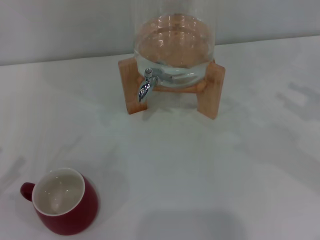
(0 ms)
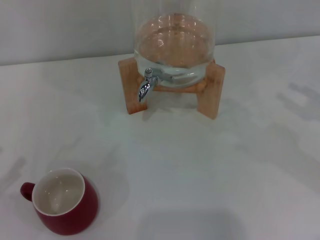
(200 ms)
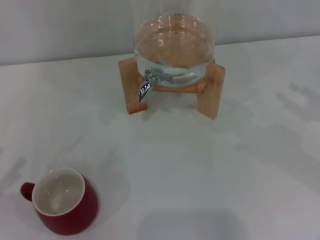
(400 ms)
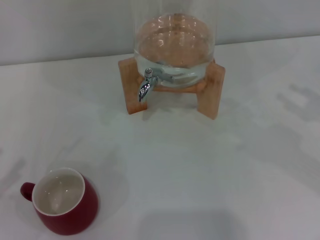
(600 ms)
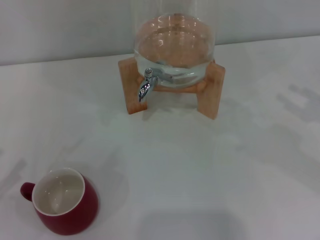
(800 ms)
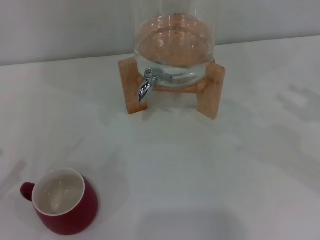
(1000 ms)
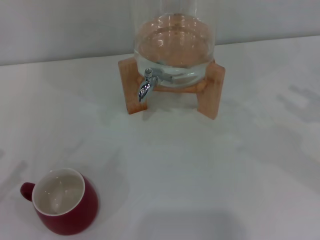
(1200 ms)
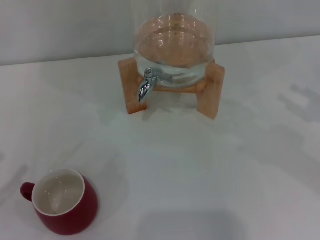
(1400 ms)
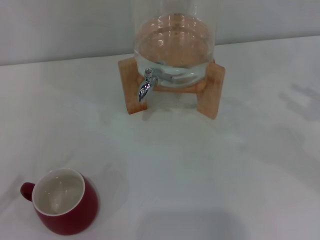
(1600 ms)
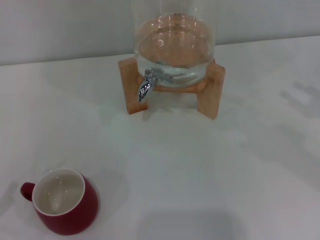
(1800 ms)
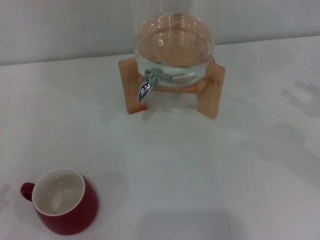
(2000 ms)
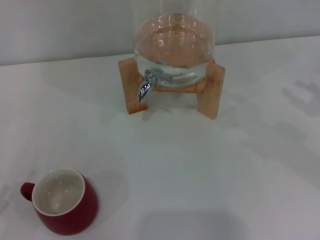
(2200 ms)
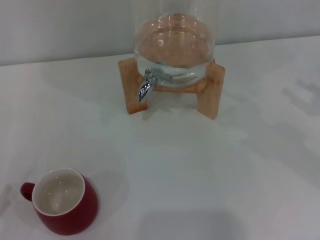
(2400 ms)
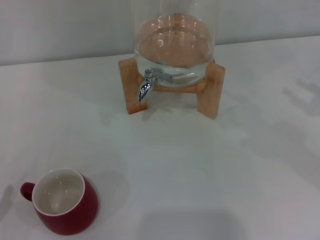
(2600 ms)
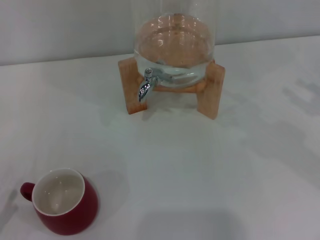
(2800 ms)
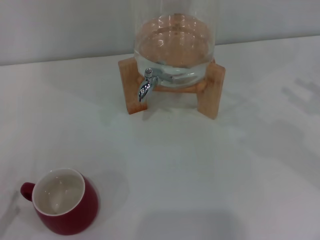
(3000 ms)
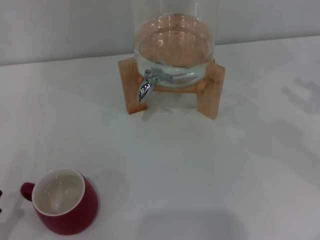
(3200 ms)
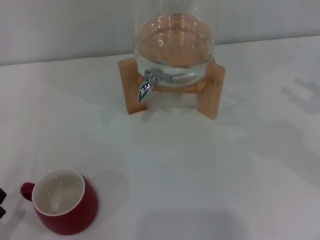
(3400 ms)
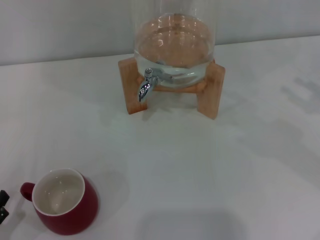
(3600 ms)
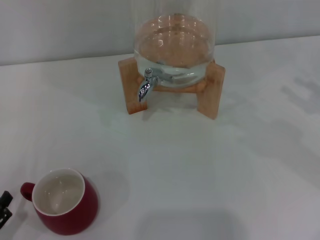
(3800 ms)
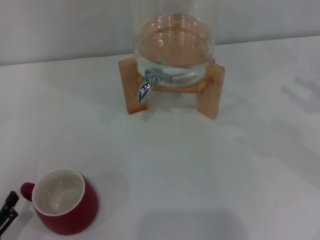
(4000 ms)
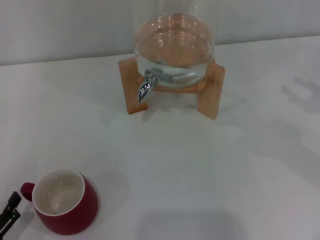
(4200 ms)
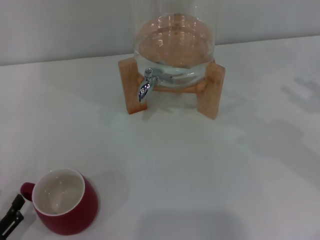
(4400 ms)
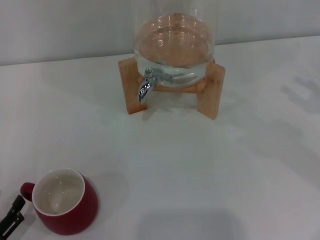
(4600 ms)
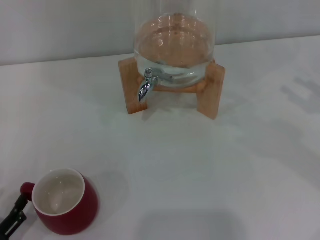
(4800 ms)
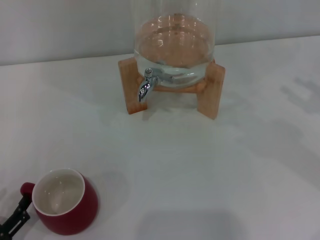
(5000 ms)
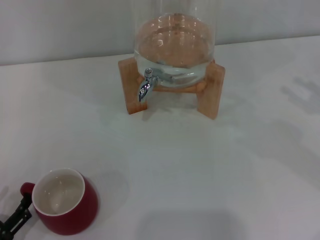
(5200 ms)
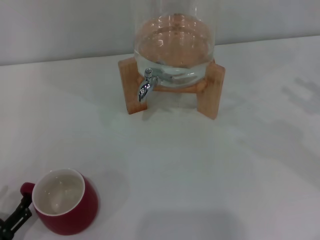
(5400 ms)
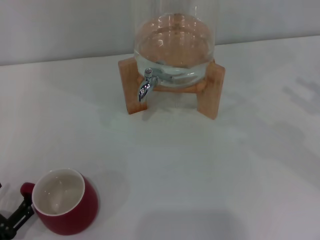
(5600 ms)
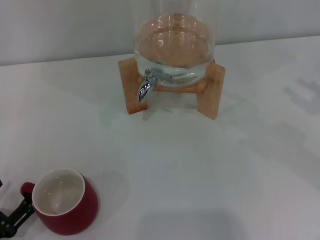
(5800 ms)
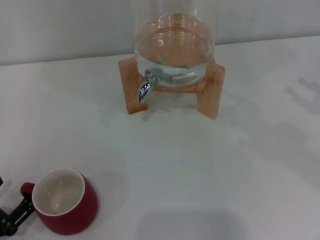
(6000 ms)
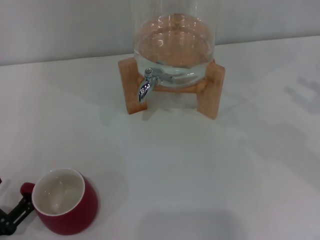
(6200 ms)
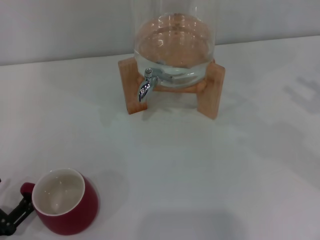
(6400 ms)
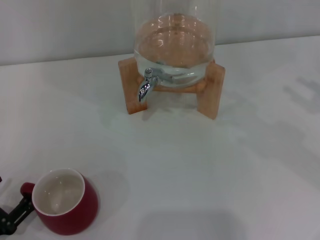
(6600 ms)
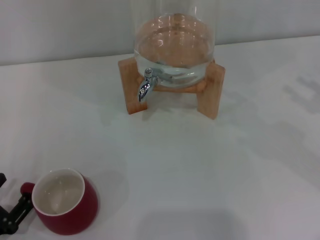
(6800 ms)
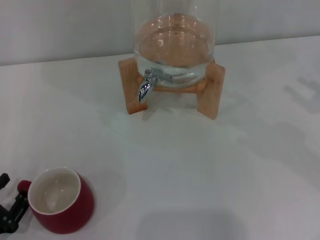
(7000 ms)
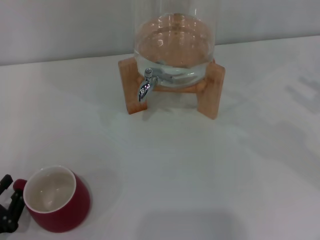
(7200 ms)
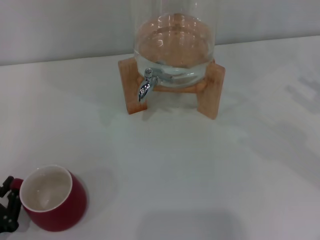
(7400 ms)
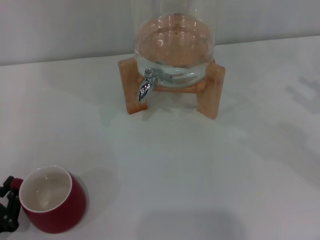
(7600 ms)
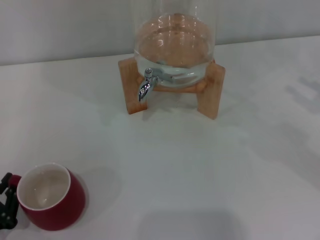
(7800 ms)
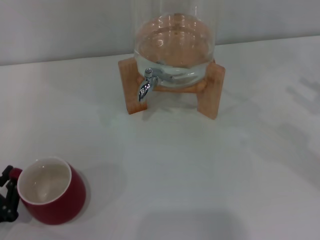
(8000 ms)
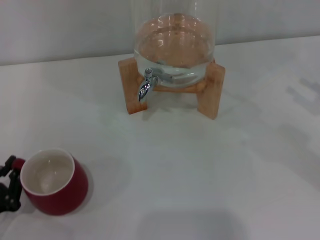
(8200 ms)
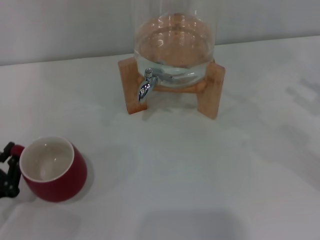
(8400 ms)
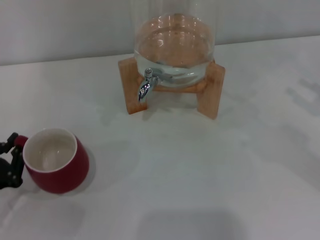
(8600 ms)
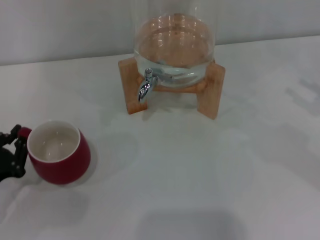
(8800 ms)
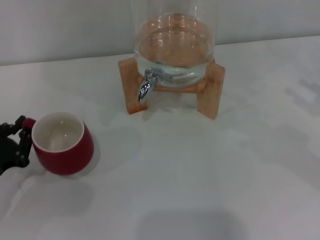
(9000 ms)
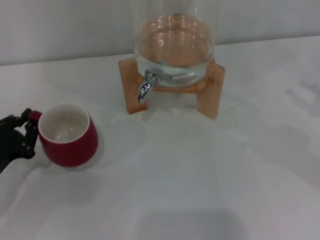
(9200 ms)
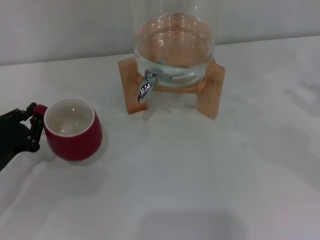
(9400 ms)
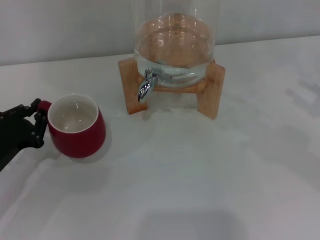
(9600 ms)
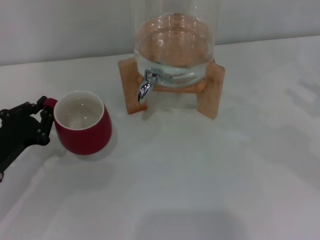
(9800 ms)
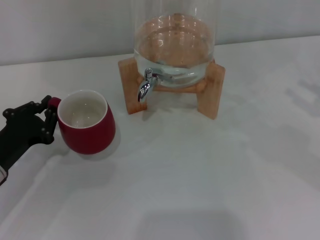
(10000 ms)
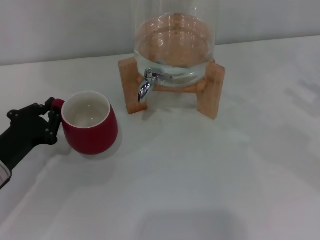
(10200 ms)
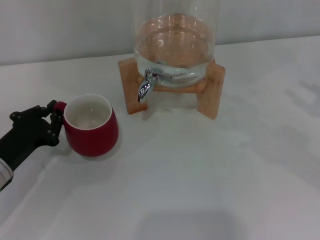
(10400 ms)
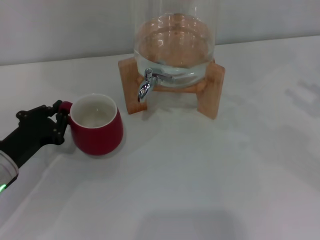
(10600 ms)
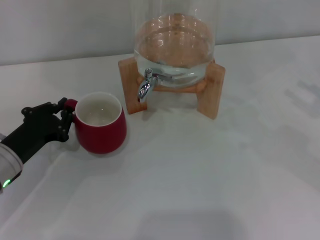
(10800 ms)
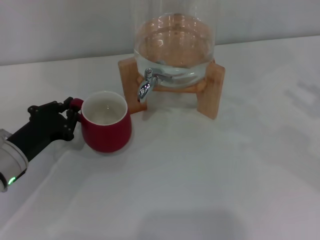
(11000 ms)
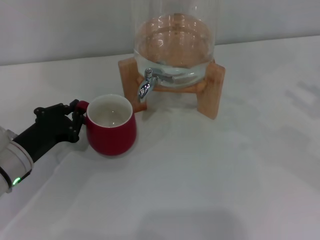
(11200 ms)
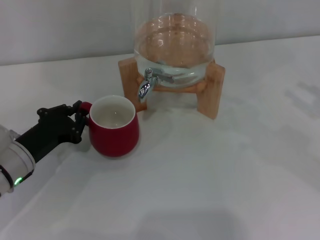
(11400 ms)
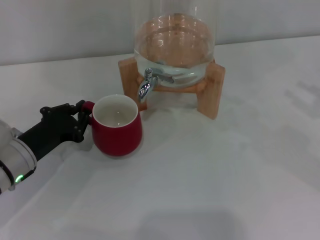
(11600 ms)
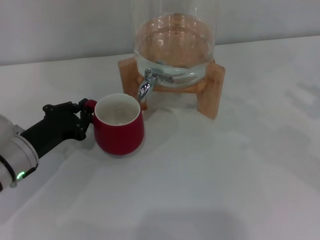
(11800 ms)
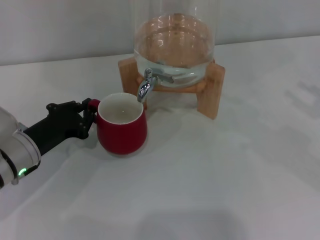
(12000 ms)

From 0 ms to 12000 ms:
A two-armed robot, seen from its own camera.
Task of the whole recording: the left gripper pick up the red cup and place it horizontally under the faucet, the right gripper turn on the faucet to fill the cup, and then turn off the faucet.
From 3000 ms to 4400 ms: The grippers move only a little.
From 6000 ms to 7600 ms: The left gripper closes up.
From 7600 ms to 9000 ms: The left gripper moves forward, approximately 10 cm.
From 9000 ms to 10400 ms: The left gripper moves about 5 cm.
From 10400 ms to 12000 ms: The grippers make only small movements.

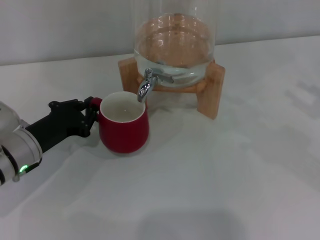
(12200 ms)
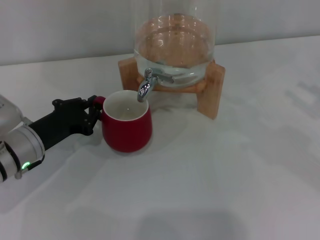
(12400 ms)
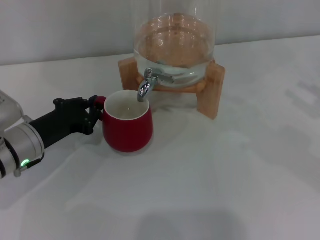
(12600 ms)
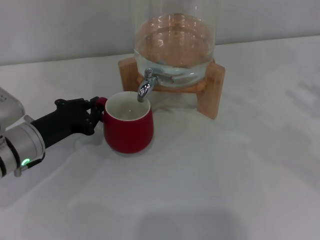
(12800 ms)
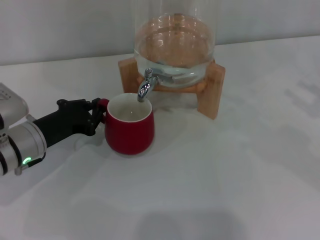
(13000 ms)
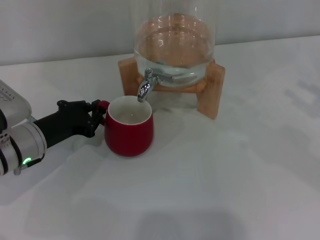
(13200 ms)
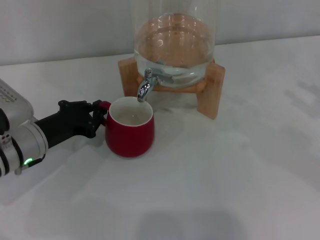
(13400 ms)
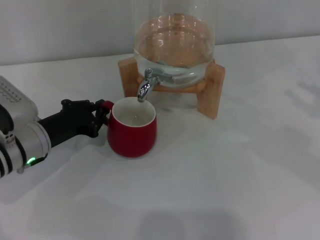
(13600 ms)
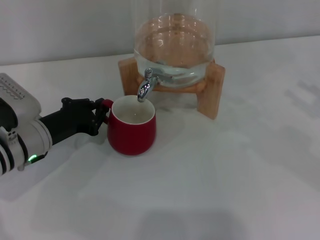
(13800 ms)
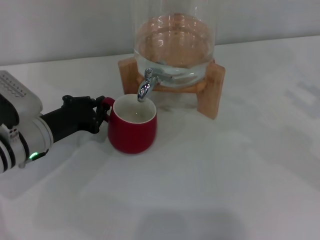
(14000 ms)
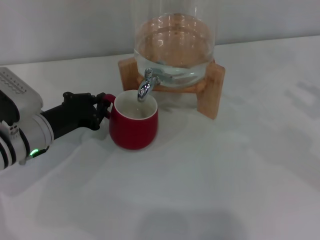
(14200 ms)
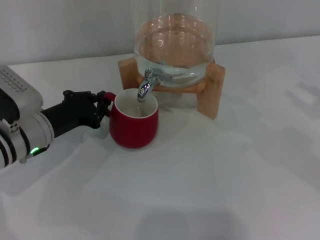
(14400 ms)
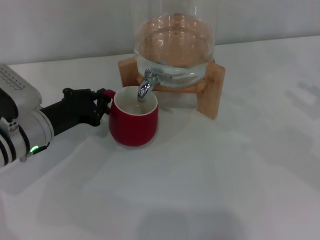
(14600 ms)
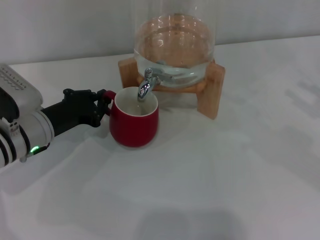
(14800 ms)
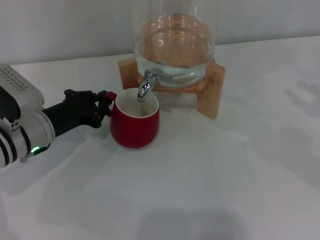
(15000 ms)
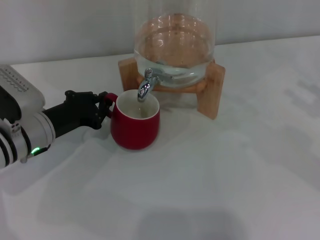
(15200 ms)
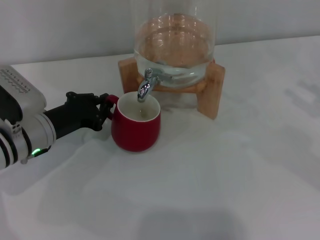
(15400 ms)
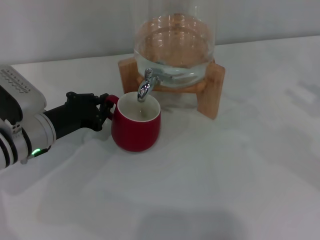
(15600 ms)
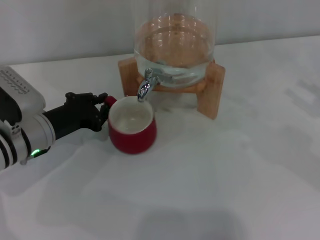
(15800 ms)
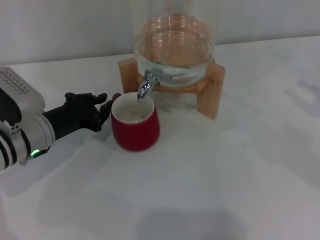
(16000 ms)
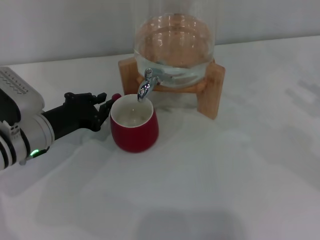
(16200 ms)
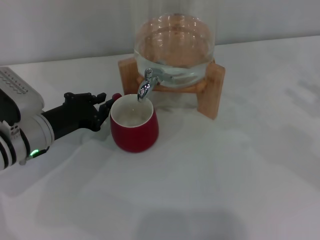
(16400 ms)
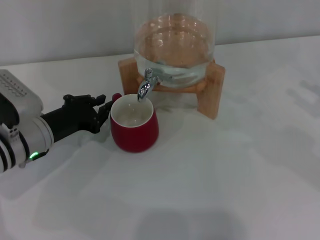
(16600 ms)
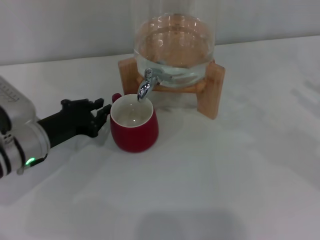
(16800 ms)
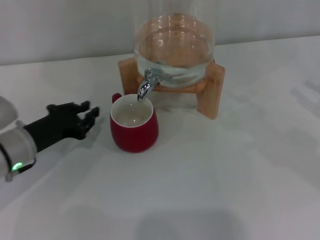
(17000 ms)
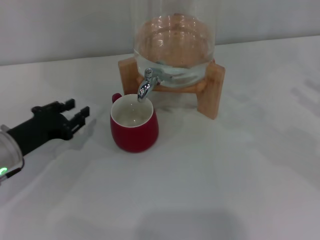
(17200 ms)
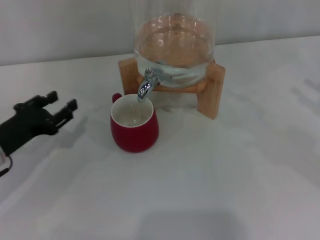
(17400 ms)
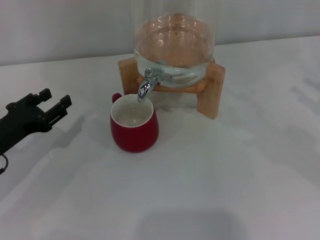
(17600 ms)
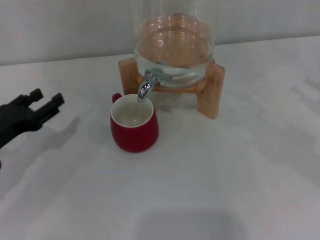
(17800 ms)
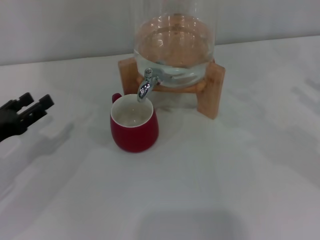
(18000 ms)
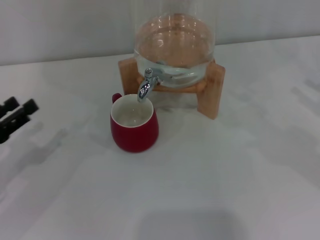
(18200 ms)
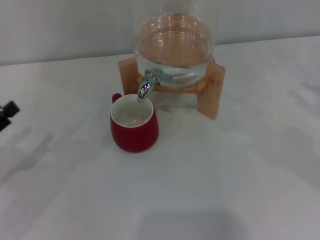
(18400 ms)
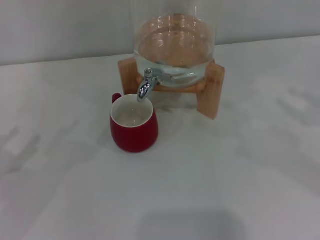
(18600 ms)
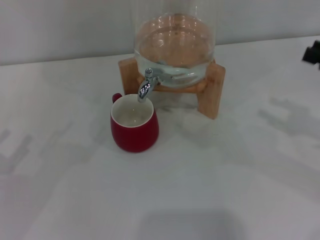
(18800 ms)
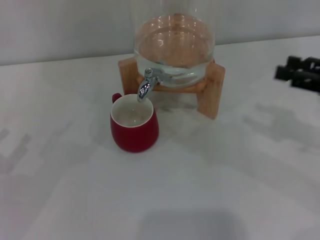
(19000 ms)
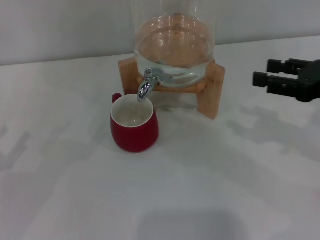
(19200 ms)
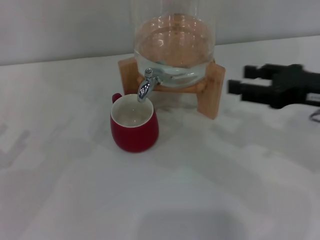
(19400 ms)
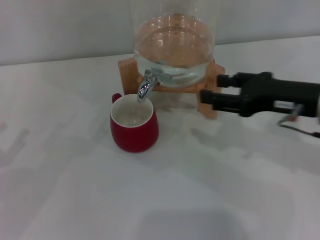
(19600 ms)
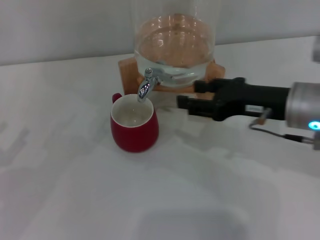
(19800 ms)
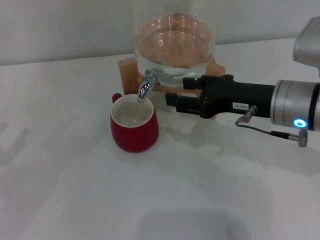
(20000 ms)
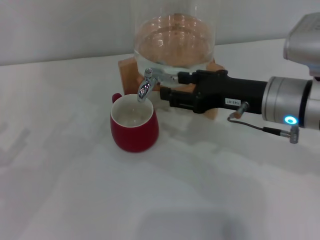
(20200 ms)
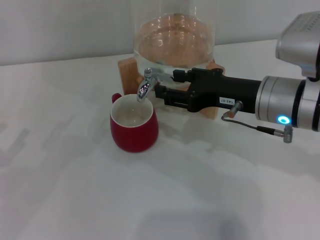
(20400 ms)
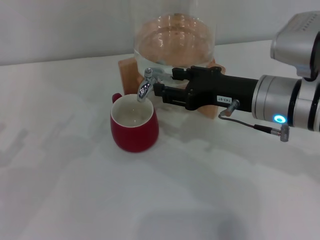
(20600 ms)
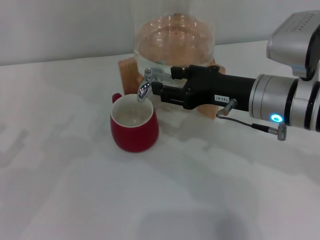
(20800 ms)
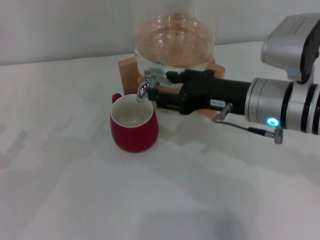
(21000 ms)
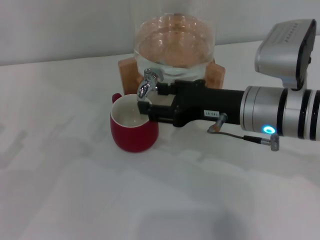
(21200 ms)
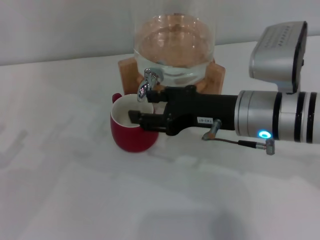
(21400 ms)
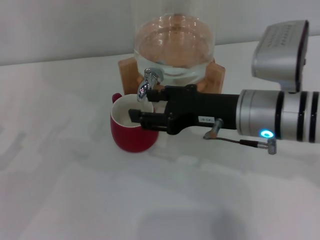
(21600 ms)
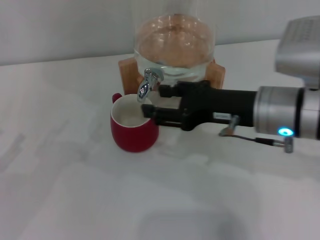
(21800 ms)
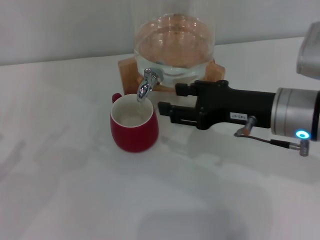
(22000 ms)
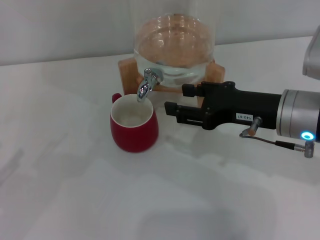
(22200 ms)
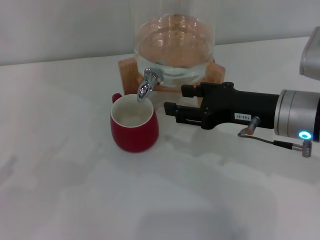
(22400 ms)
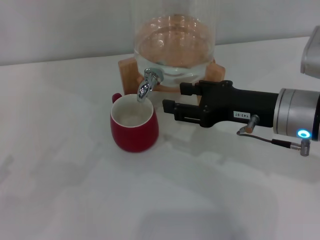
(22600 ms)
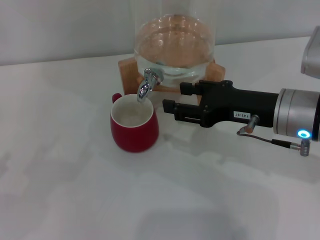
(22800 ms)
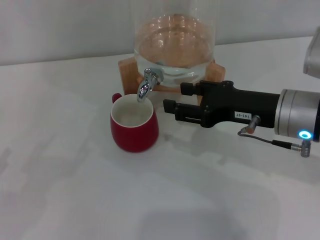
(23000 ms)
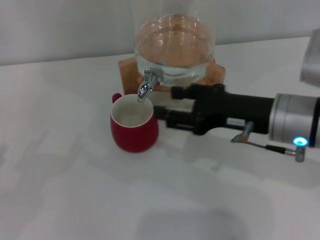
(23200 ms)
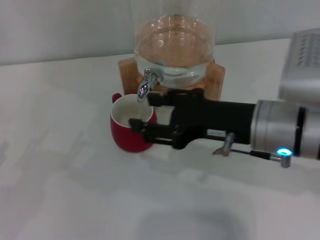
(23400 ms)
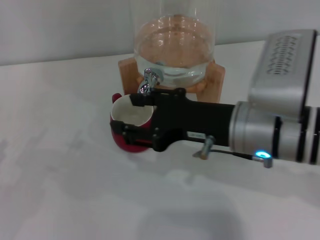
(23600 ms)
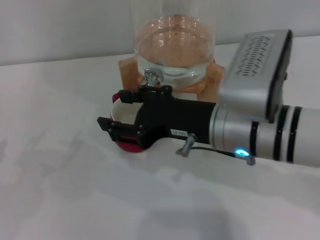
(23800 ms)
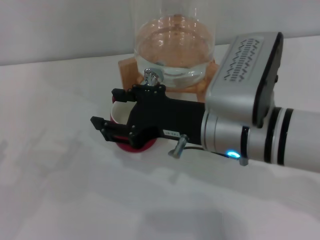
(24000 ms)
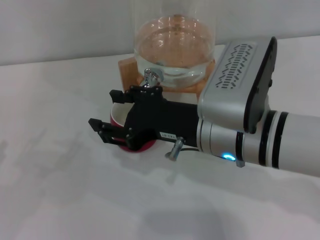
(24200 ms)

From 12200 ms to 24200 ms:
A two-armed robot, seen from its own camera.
Task of the whole recording: the left gripper pick up the red cup and place it horizontally under the faucet, the right gripper turn on the faucet to fill the cup, and then turn off the faucet.
Step, from 12200 ms to 16800 ms: Move the cup beneath the water dispenser nozzle with the left gripper.
Step, from 17000 ms to 21600 ms: Open the dispenser valve and fill the cup with water with the right gripper.
From 12200 ms to 13800 ms: There are only small adjustments of the grippers.
From 13800 ms to 16600 ms: Both grippers stay about where they are.
From 16600 ms to 18200 ms: The left gripper moves to the left and backward, about 15 cm, and opens up.
From 18200 ms to 19800 ms: The left gripper ends up approximately 5 cm from where it was. The right gripper heads to the left, covering approximately 20 cm.
From 19800 ms to 21200 ms: The right gripper shifts about 5 cm to the left.
From 21200 ms to 22600 ms: The left gripper travels backward by about 5 cm.
From 22600 ms to 24200 ms: The right gripper heads to the left, covering some 10 cm.
